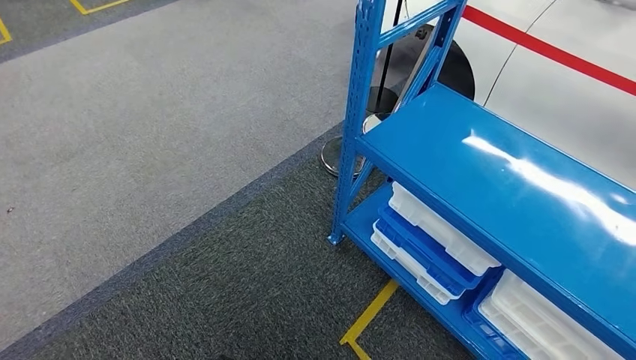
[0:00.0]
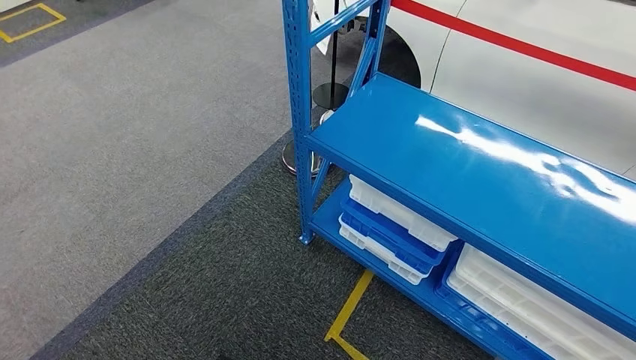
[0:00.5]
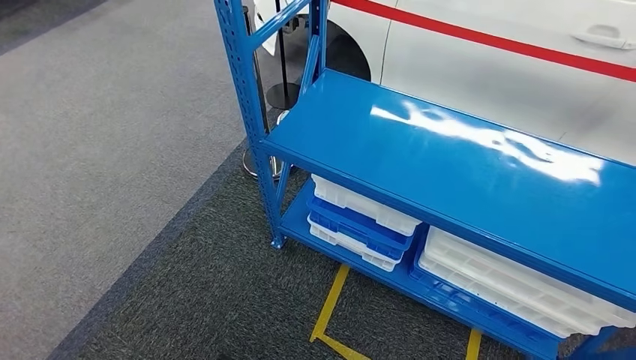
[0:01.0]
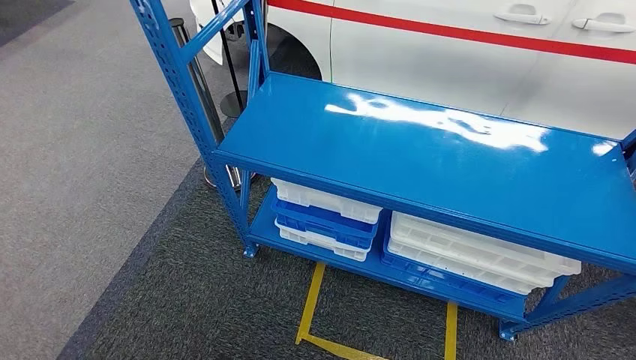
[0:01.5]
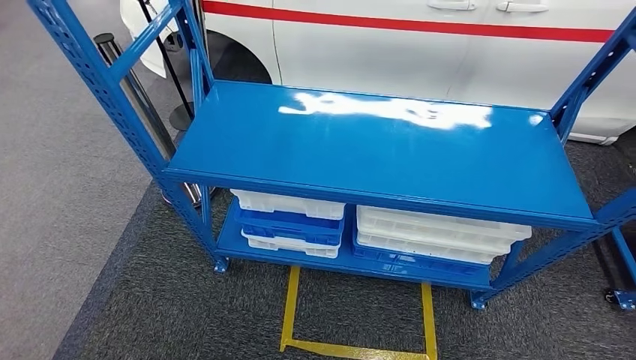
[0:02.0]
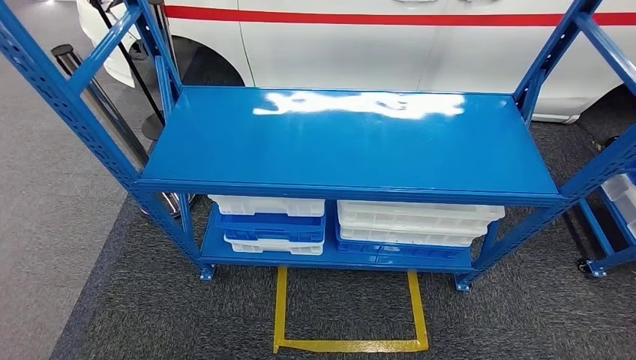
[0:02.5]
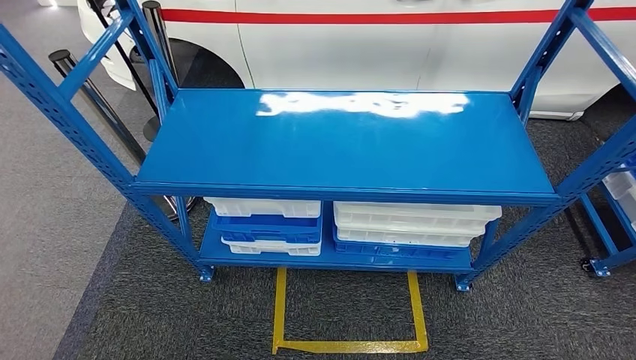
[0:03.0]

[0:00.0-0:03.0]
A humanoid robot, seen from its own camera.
Step, 0:00.0 to 0:03.0: Move to the initial position of the shelf.
